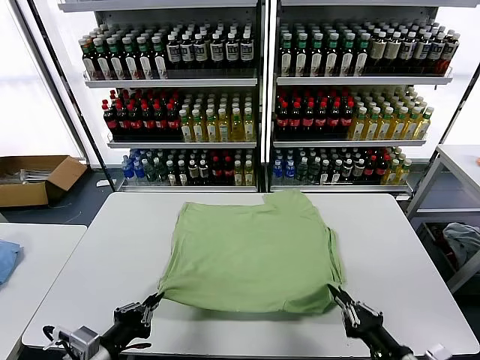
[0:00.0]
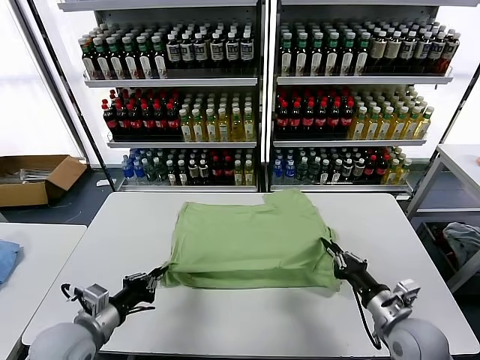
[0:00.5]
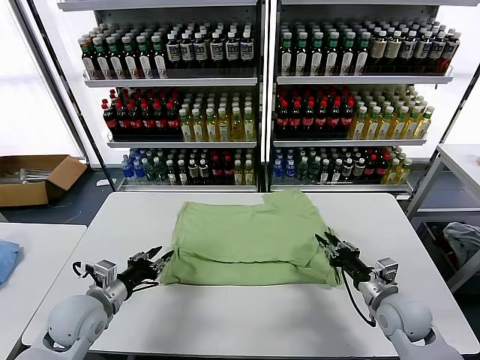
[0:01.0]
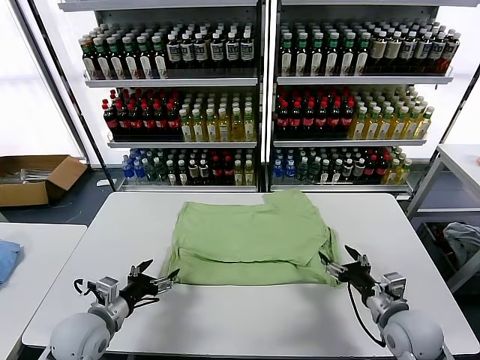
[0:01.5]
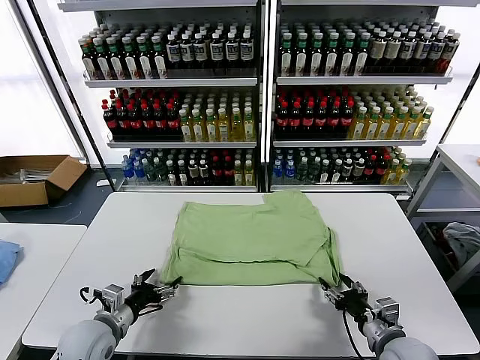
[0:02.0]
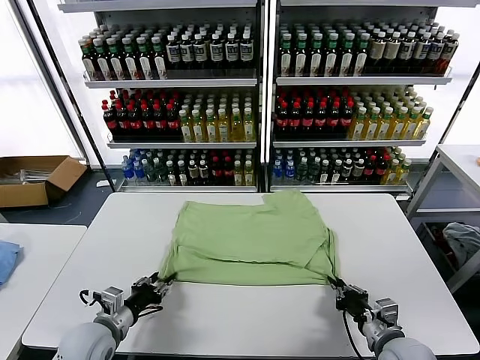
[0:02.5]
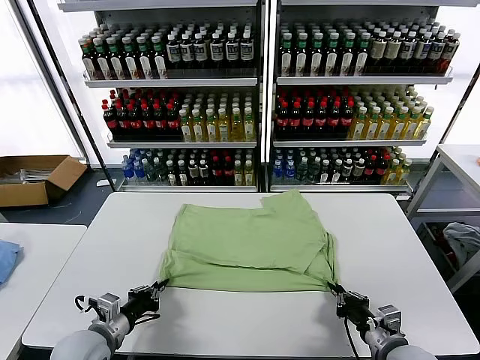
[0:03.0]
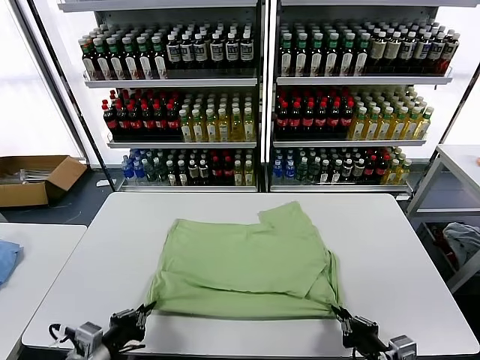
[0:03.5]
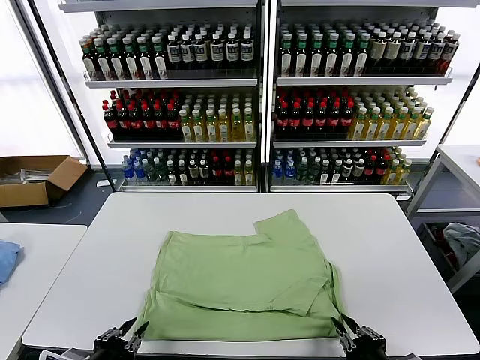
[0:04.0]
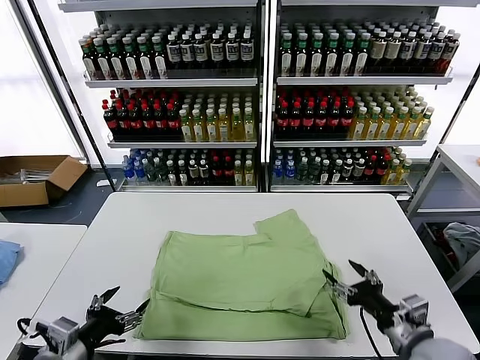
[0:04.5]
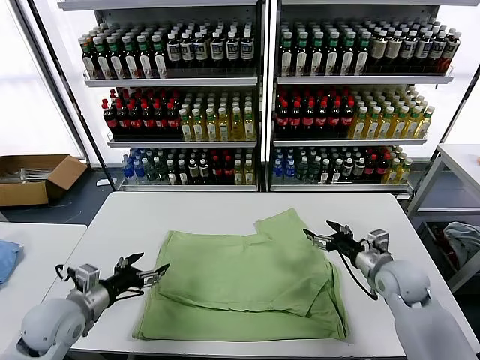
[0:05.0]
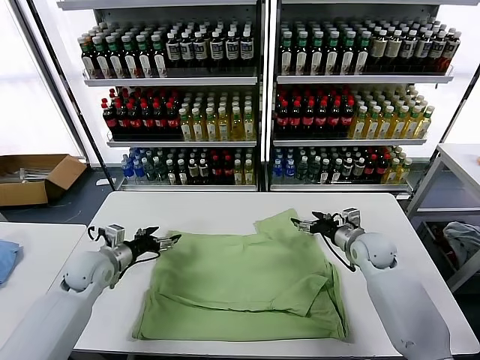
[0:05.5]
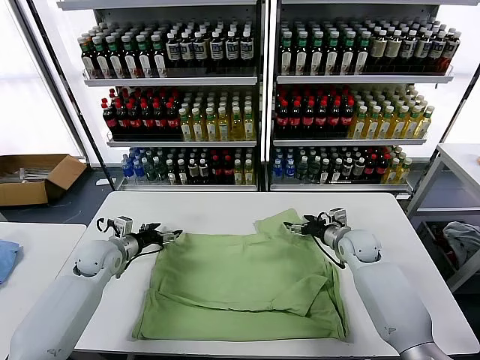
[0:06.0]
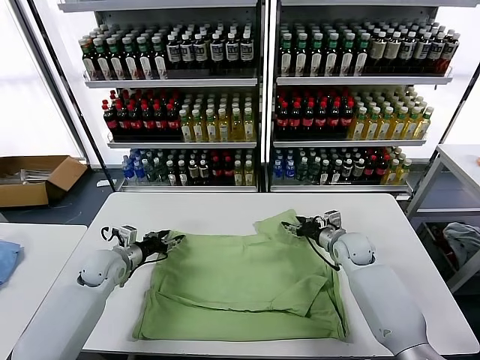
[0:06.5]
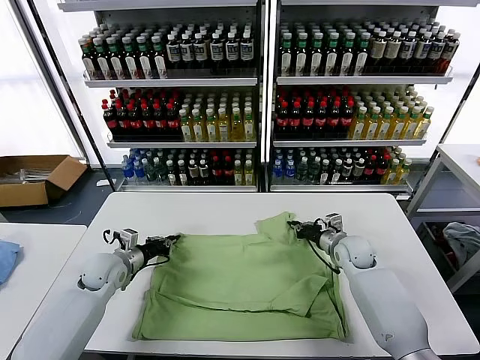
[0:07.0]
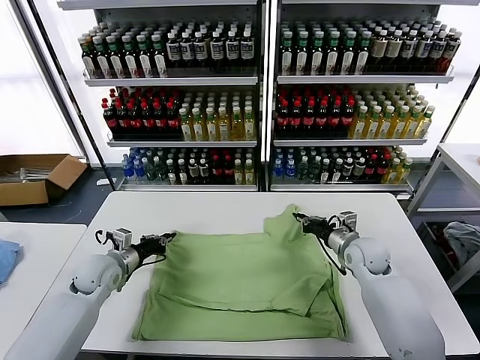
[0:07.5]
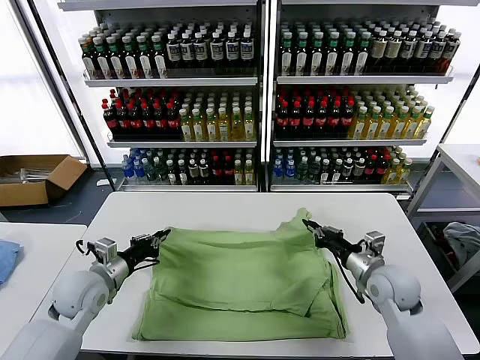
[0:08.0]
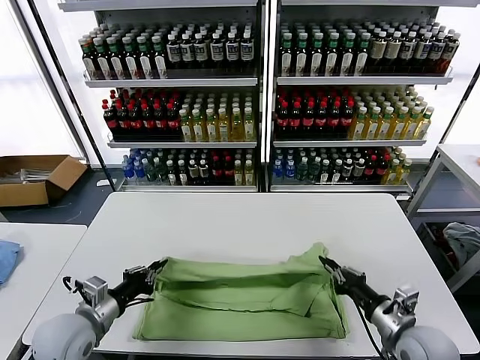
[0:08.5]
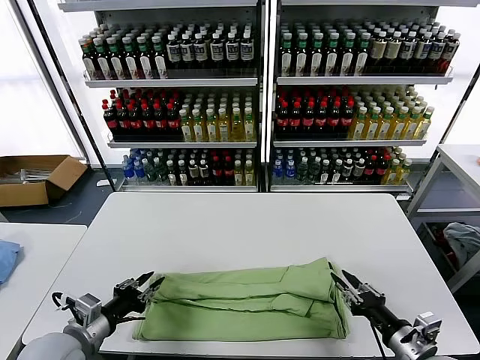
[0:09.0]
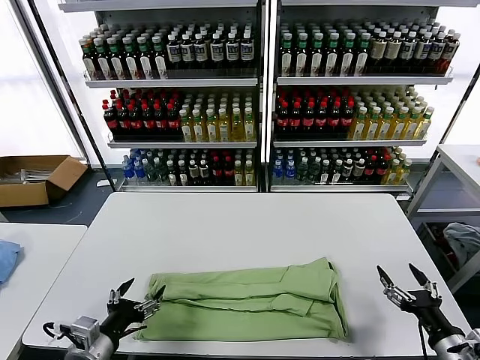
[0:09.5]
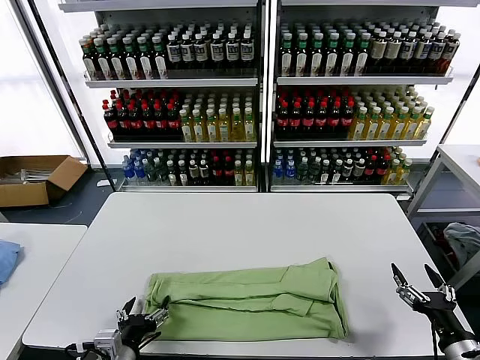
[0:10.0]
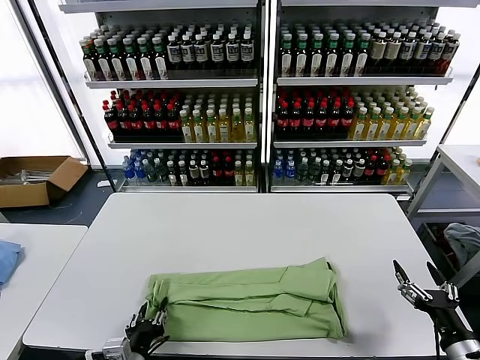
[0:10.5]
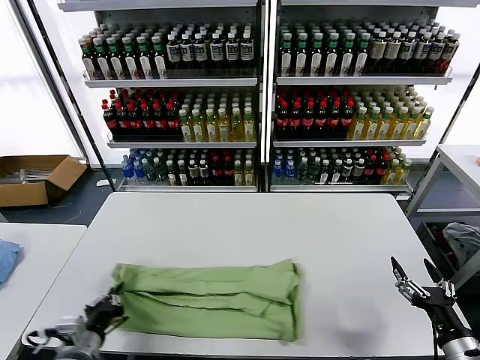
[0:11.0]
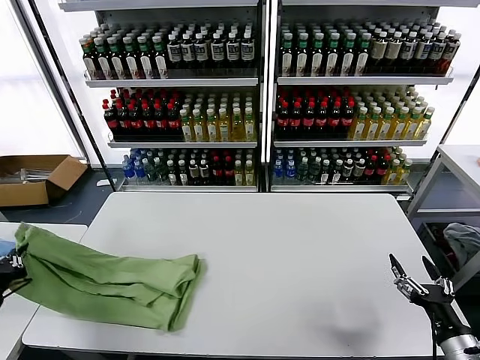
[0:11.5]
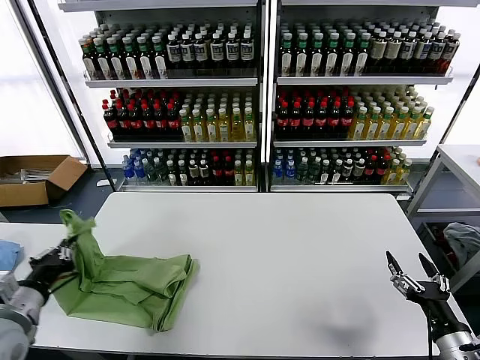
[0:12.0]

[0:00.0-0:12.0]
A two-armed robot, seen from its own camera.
Task of the whole recording: fold and organize the clothes.
Step, 1.5 to 4.0 s: Drag the clothes downward with both gripper.
Step, 4.5 to 7.0 s: use both grippers simultaneously to clamp the upper edge of the clothing fabric.
Step, 7.5 to 9.0 s: use both grippers to drag the upper edge of the fabric backward and fold it over the lower edge.
Step, 9.5 to 10.5 s: use the left gripper to clamp the left edge of the fabric.
0.0 to 2.0 s: The left gripper travels forward and downward by some 15 cm, and opens its fingers, while the right gripper heads forward, covering about 5 cm, and opens up.
2.0 to 4.0 s: Both grippers travel together backward and upward, roughly 15 cm. The left gripper closes.
4.0 to 6.0 s: The grippers both shift forward by about 35 cm. The left gripper opens up, while the right gripper opens.
6.0 to 8.0 s: The grippers both shift backward by approximately 15 cm. The right gripper closes, while the left gripper closes.
8.0 to 10.0 s: The grippers both shift backward and to the right by roughly 20 cm. The left gripper opens its fingers, while the right gripper opens up.
10.0 to 12.0 s: The left gripper shifts roughly 20 cm to the left and upward, and closes up.

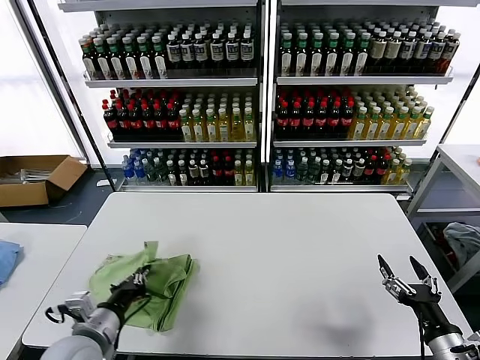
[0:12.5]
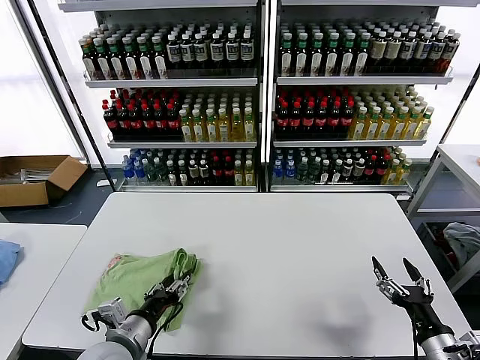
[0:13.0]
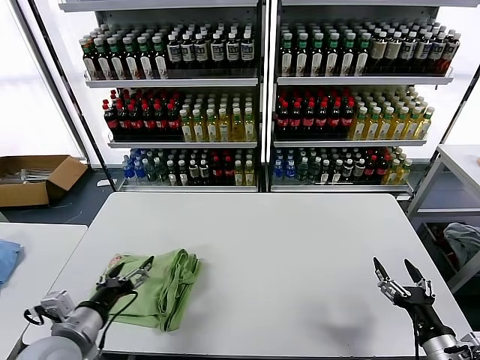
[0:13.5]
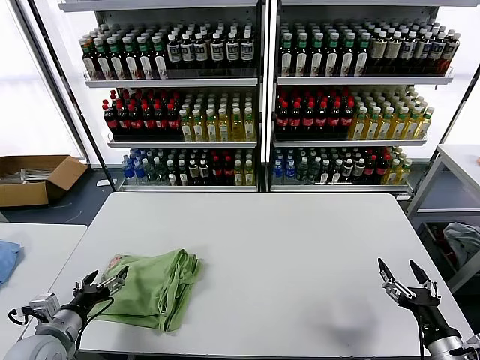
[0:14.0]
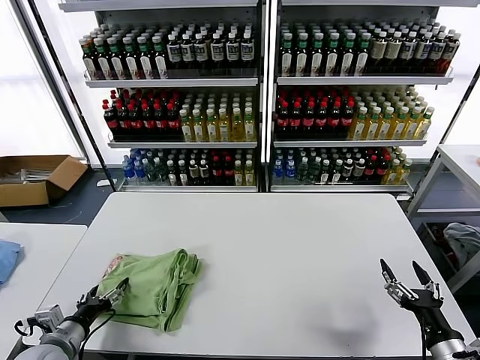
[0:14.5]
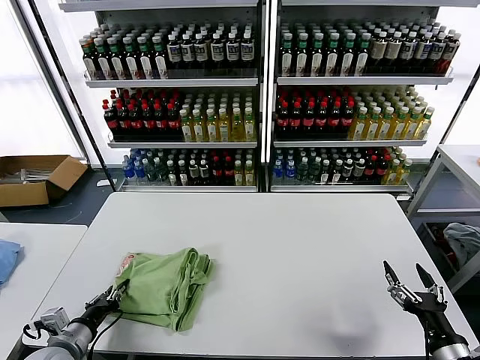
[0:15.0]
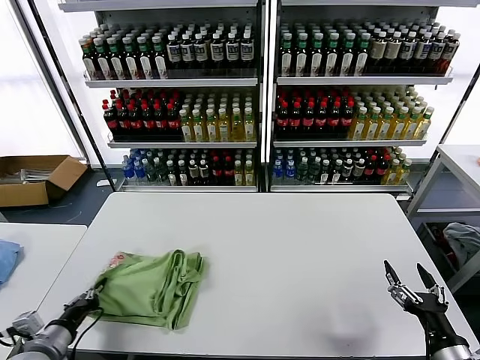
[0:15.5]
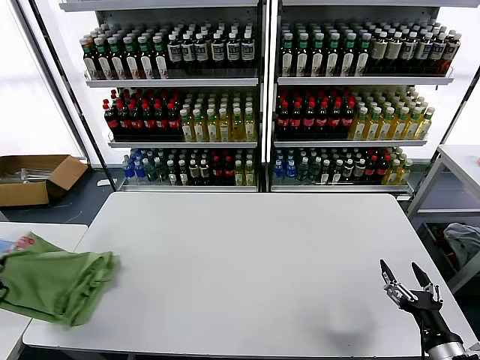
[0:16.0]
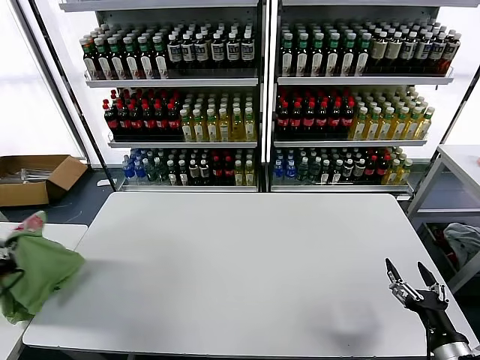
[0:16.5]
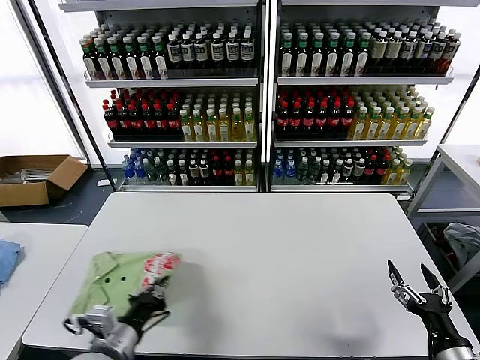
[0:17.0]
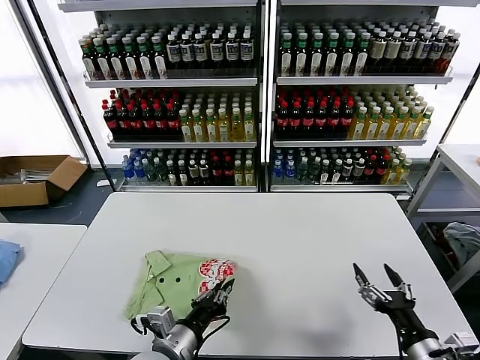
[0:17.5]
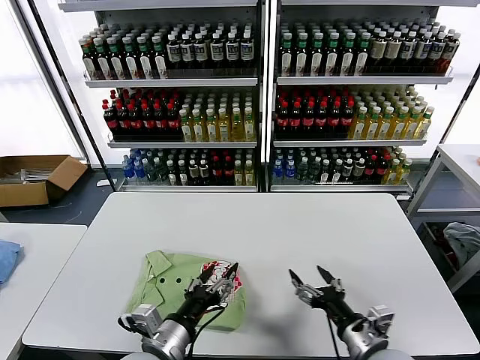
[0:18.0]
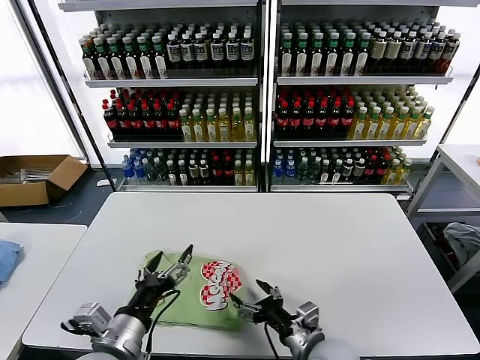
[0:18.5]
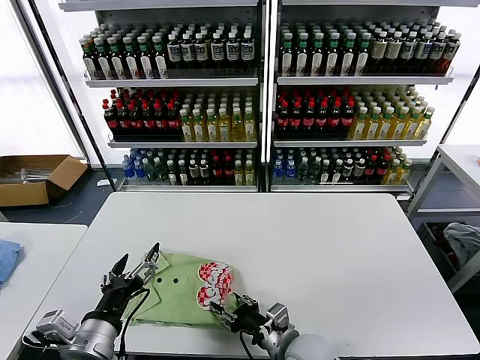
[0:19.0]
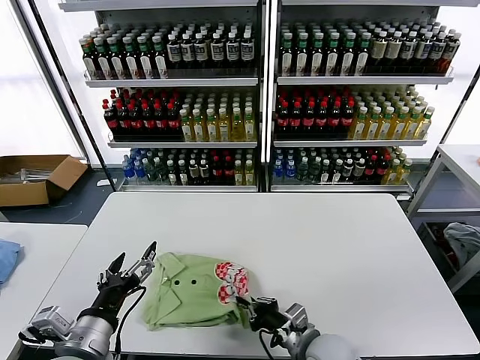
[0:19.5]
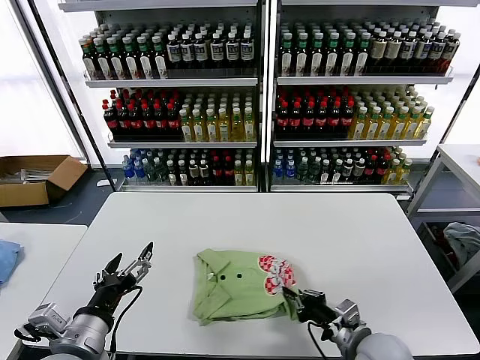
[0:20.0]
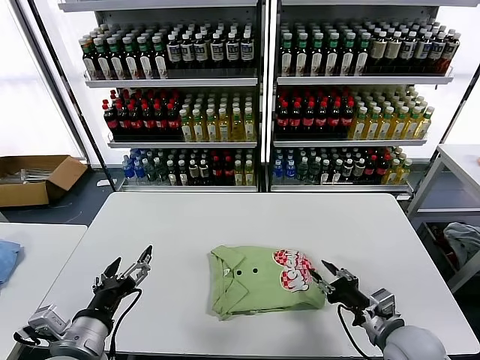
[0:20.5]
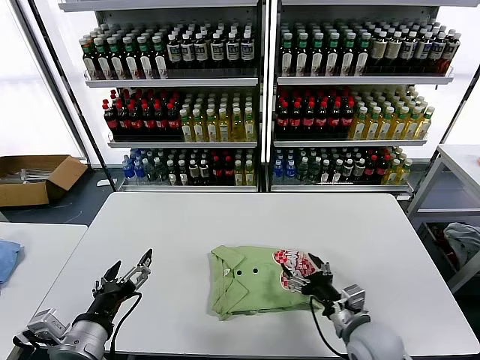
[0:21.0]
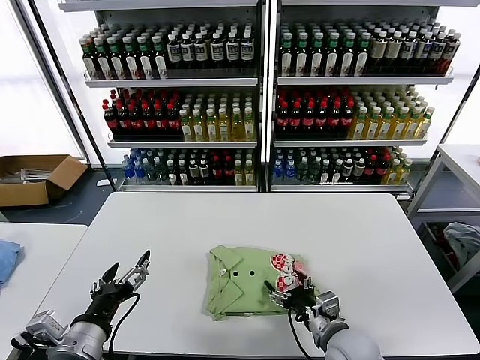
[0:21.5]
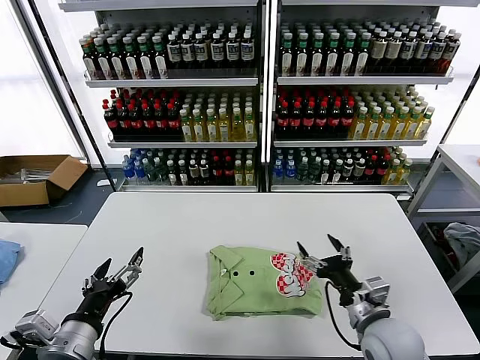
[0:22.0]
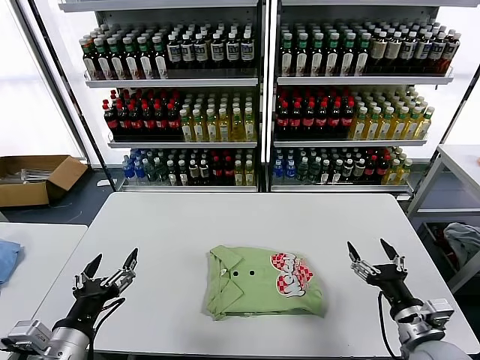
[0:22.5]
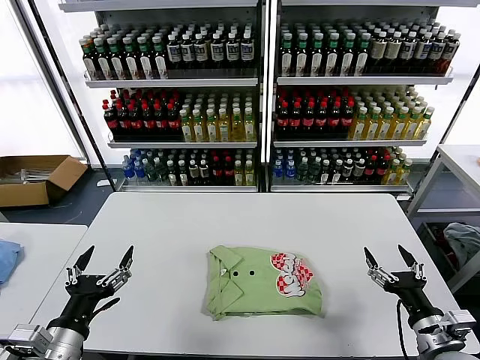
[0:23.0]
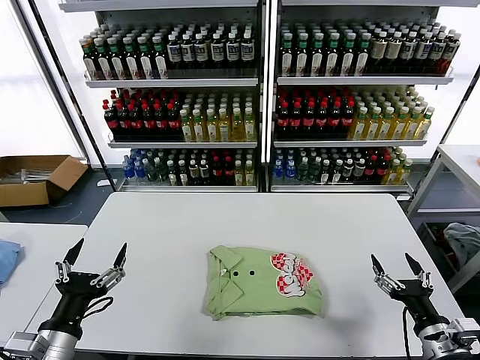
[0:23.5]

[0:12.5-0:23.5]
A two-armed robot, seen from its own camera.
Task of the whole recording: fold and organize the clothes.
Step, 13.5 to 17.5 s: Flip the folded clothes over with left gripper.
Step, 18.0 to 21.5 s: Drag the clothes to the center of the table.
12.5 to 14.5 s: The left gripper moves to the left and downward, about 10 cm, and opens its fingers.
14.5 to 16.0 s: The left gripper is displaced to the left and upward by some 15 cm, and closes.
16.0 to 18.0 s: The right gripper moves to the left and forward, some 15 cm. The left gripper shifts approximately 35 cm to the right, and opens its fingers.
18.0 to 20.0 s: The left gripper is displaced to the left and upward by roughly 10 cm, while the right gripper travels to the left and back again, some 15 cm each way, and closes up.
20.0 to 21.5 s: The right gripper opens up.
21.5 to 23.5 s: The right gripper goes roughly 20 cm to the right and backward.

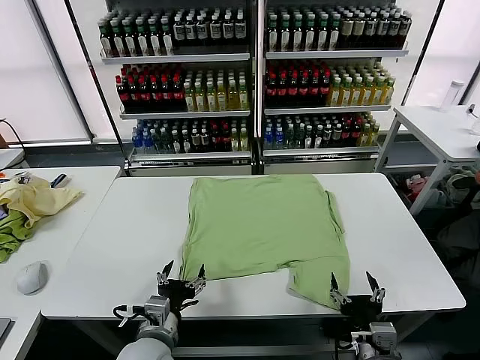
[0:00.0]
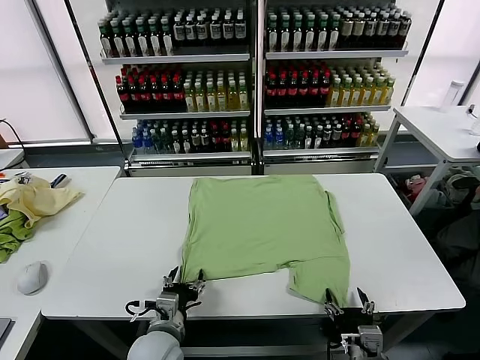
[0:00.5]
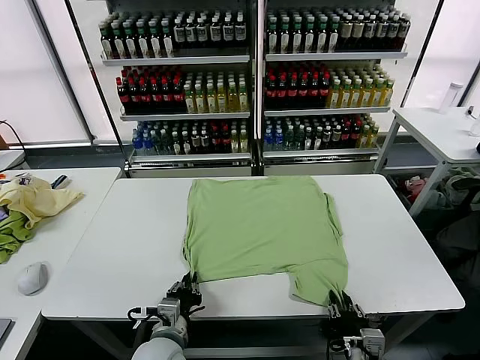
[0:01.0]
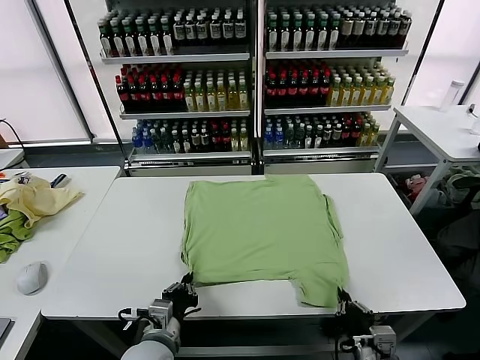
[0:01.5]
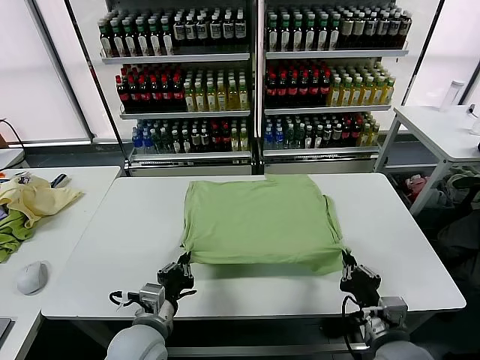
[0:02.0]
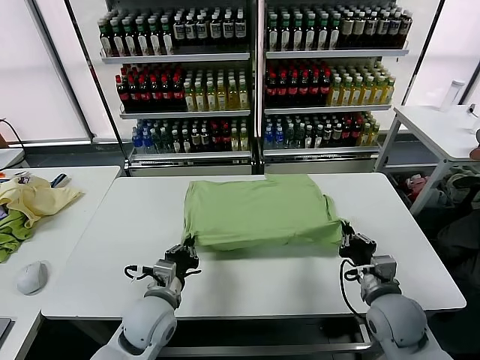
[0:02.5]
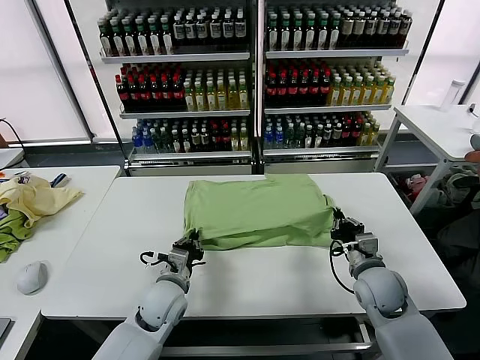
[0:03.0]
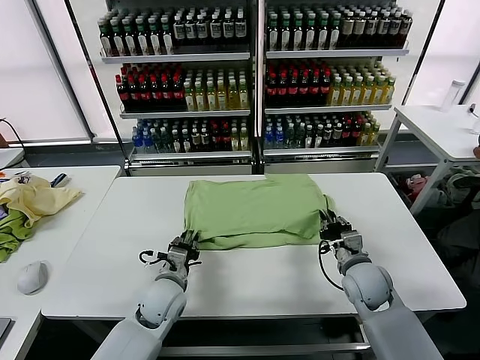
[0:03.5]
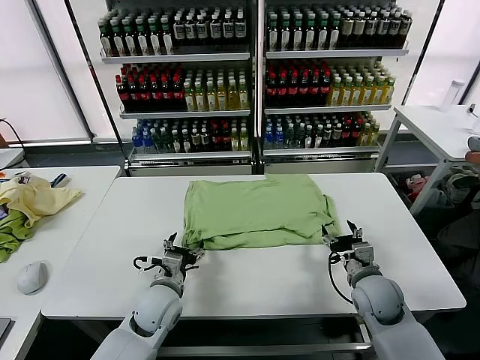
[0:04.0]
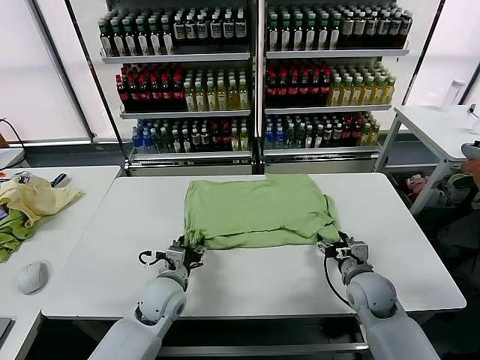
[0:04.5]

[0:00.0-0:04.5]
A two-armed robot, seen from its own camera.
Task of the whole recording: fold and organize the clothes.
Step, 0.0 to 1.0 s: use both grippers simultaneously to clamp the lower edge of the clothing fabric.
Step, 1.5 to 3.5 s: use both grippers to drag the lower edge of the fabric forward and fold it over the upper edge.
2.0 to 4.5 s: The left gripper heads forward, covering roughly 10 cm, and opens up. The right gripper shifts some 15 cm forward and downward, and opens up.
